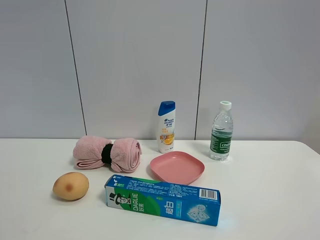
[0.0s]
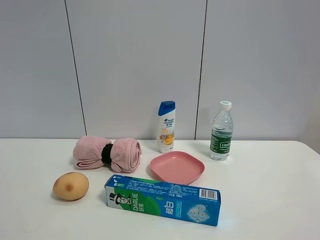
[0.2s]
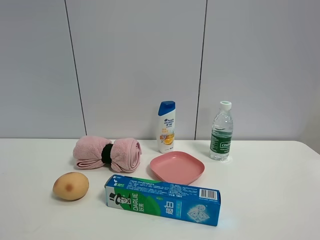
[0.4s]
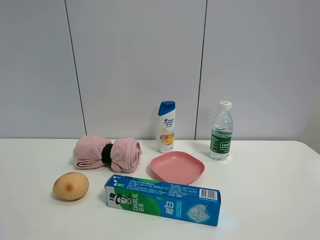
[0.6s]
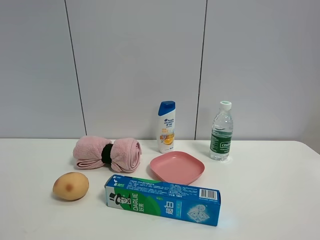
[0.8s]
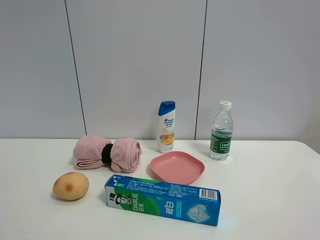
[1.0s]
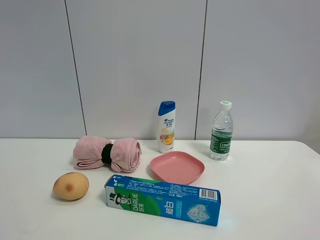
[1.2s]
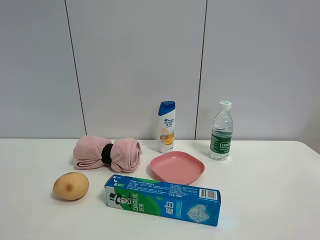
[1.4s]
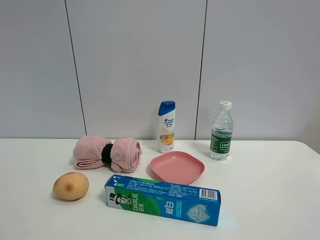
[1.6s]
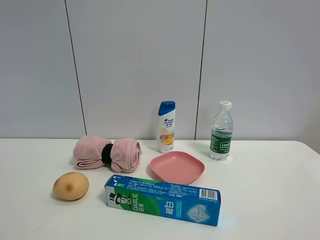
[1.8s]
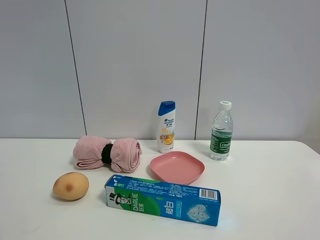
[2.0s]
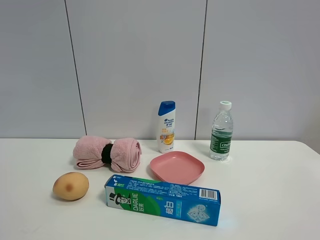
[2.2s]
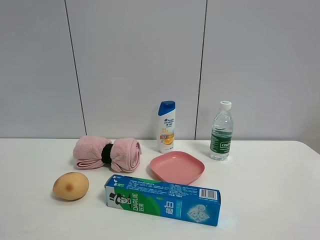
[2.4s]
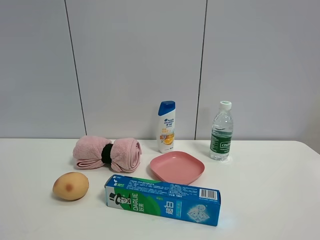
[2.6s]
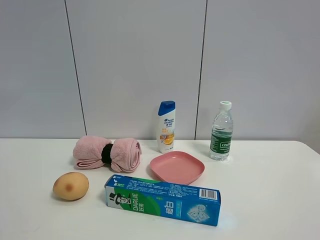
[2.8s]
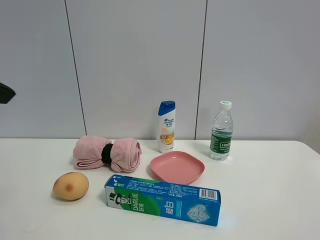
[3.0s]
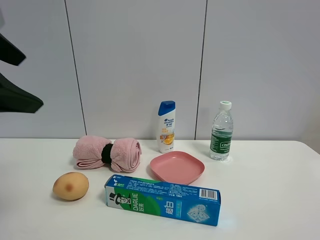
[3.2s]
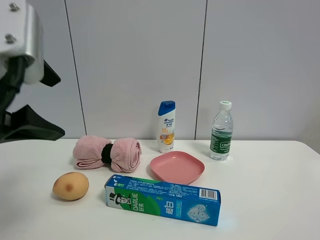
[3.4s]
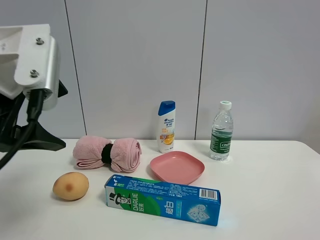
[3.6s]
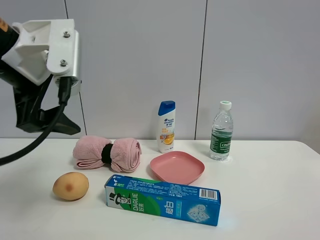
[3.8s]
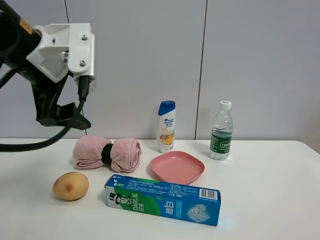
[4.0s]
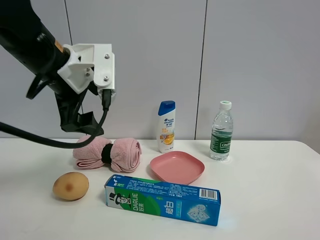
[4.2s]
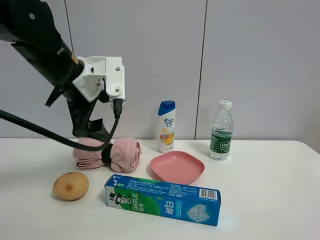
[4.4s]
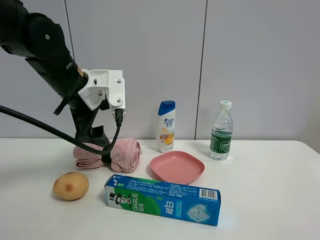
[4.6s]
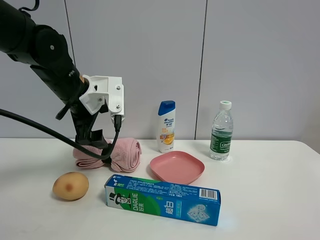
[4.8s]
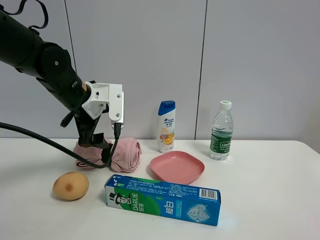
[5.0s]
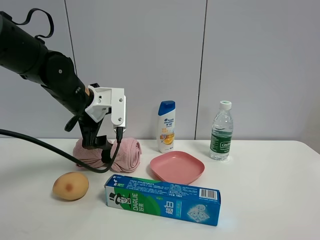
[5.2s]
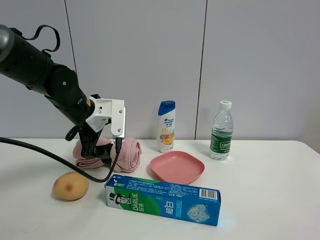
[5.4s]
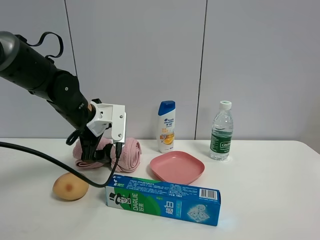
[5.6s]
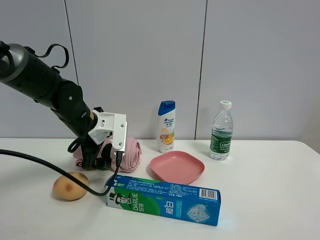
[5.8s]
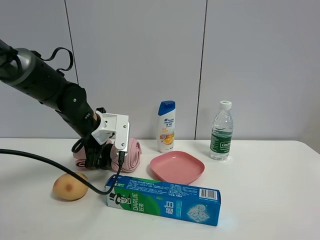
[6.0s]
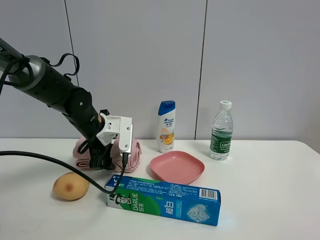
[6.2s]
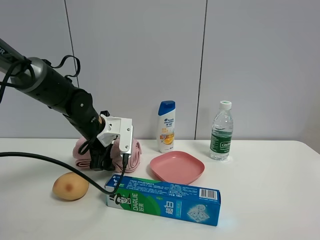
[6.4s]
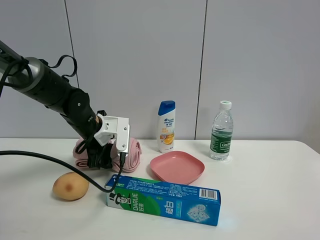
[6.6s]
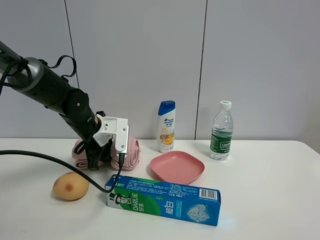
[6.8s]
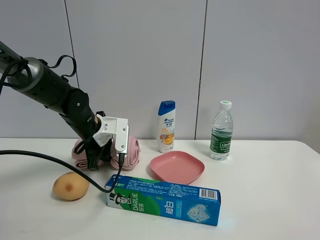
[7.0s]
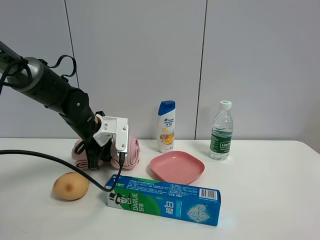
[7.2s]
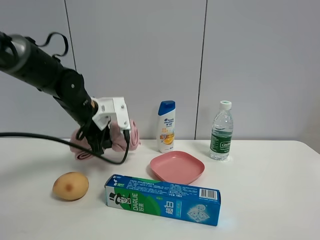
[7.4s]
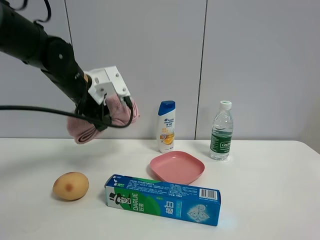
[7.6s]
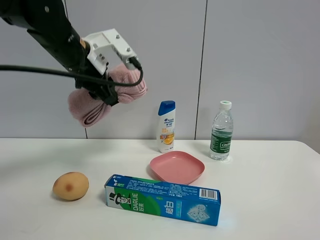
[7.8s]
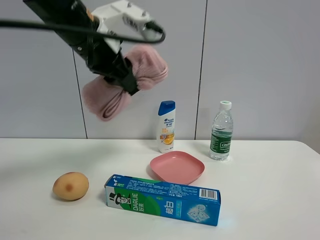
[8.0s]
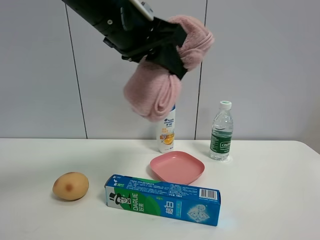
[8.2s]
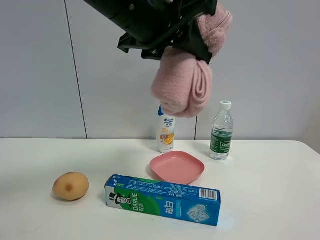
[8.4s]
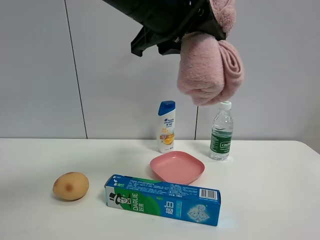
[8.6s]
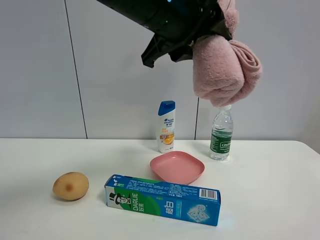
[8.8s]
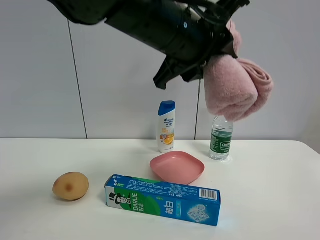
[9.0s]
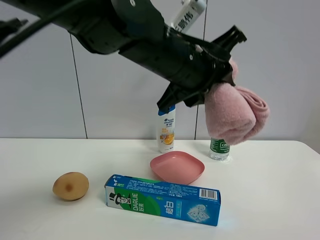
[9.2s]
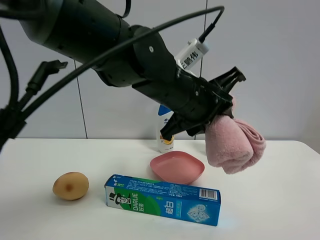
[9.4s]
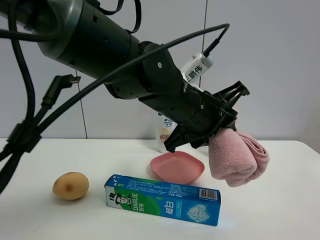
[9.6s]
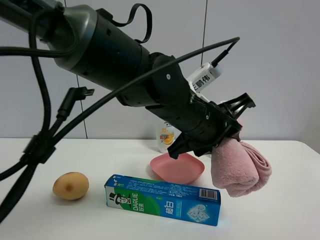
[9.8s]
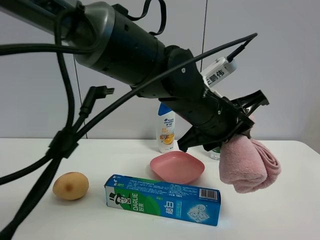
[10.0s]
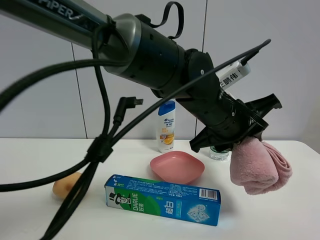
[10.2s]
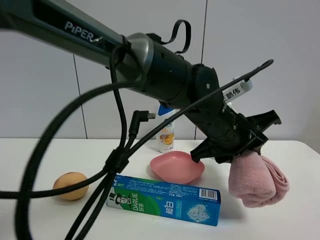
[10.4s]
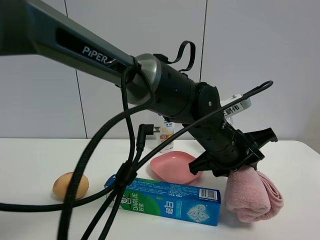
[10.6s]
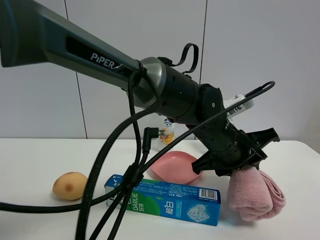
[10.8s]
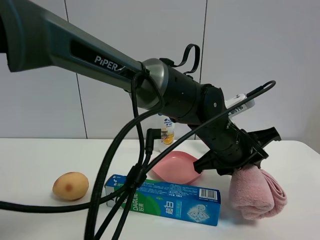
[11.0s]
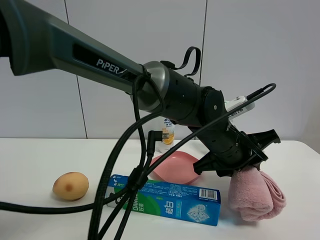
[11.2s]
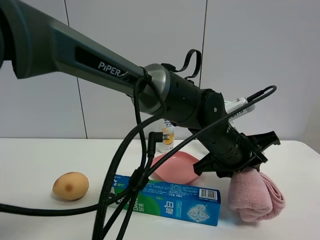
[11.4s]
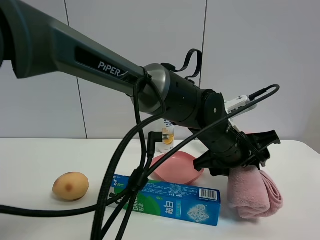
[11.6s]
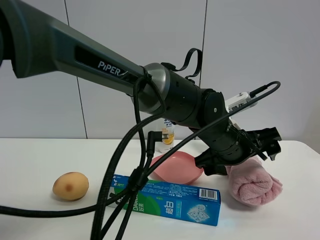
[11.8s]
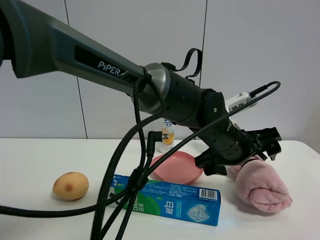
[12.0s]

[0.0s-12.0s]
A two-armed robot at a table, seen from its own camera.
Task of the whole recording: the gripper move the object.
Step, 0.0s to 7.2s: Grasp the pink towel with the left gripper.
Step, 7.4s to 11.8s: Place the pink towel on the table with the left gripper.
0.0s to 1.6s: The two grippers keep their place.
3.0s to 4.4s: The left gripper goes roughly 20 cm forward, to the right and downward.
4.4s to 6.0s: The left gripper heads downward and forward, covering some 15 cm.
6.0s to 7.6s: The left gripper goes roughly 10 cm upward, and closes up.
7.6s to 9.0s: The left gripper moves to the right, backward and upward, some 25 cm.
9.0s to 10.4s: The left gripper goes about 15 cm downward and to the right.
10.4s to 12.0s: The left gripper opens up.

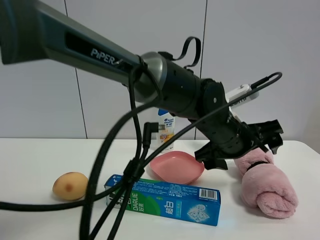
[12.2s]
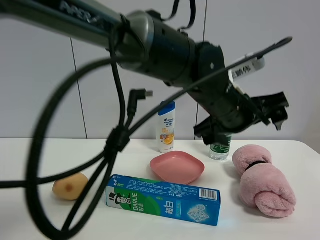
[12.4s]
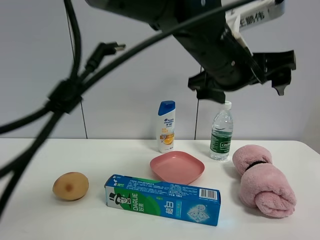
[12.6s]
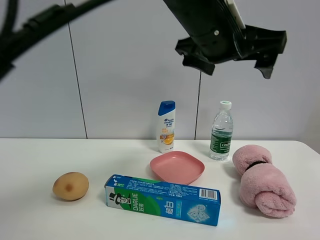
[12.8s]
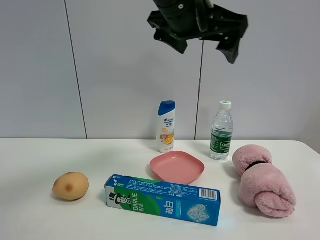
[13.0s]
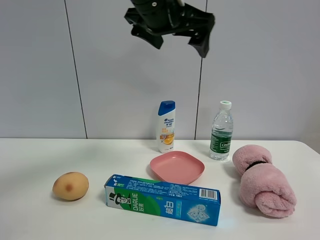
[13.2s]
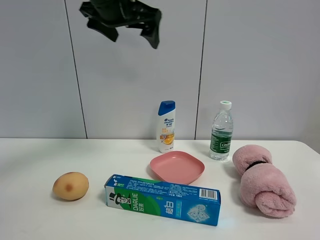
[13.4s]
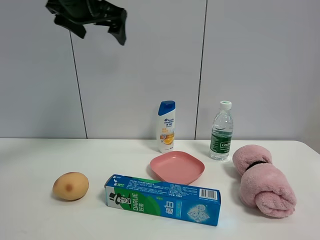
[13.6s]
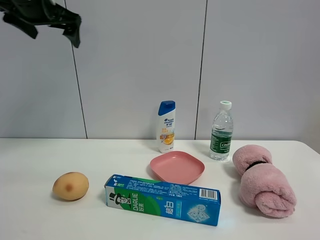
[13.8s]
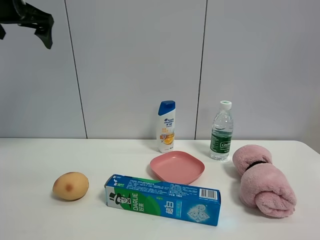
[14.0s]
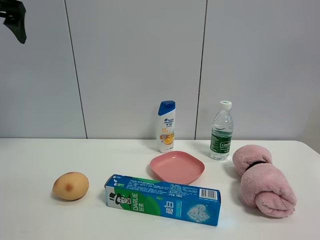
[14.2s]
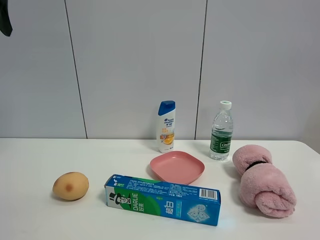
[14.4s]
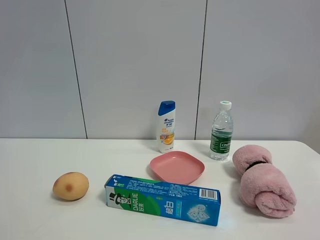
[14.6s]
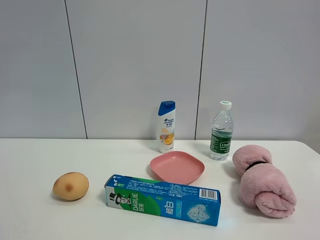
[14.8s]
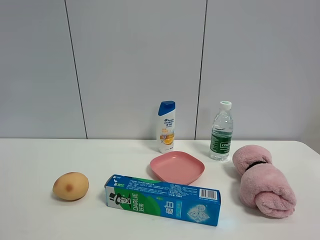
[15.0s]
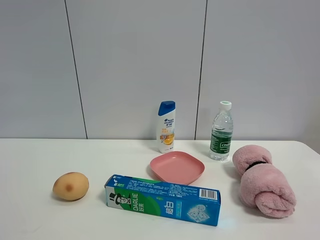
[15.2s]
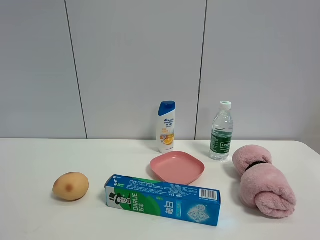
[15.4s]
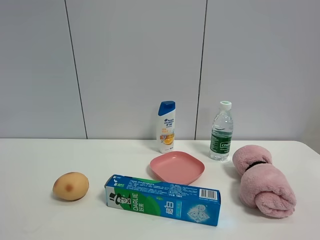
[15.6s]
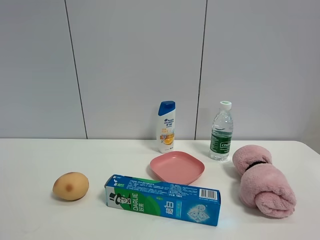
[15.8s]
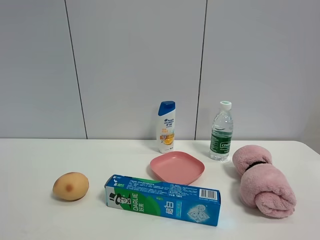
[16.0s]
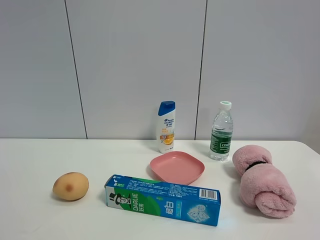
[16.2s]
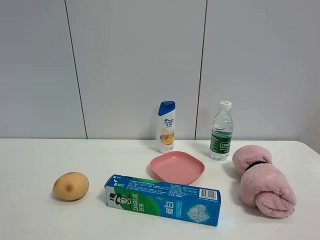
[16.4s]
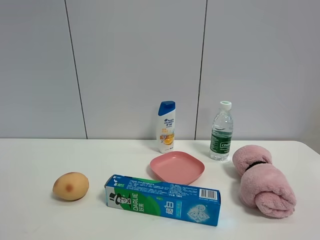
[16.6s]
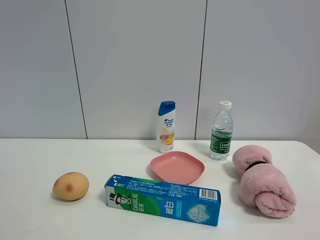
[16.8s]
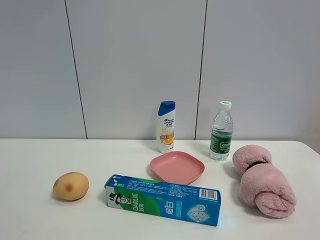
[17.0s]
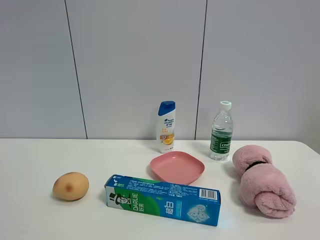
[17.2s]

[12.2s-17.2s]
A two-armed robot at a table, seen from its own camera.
Task of the whole recording: the gripper move the object.
12.2s to 13.8s: The left gripper goes roughly 40 cm to the left and upward.
13.8s to 15.6s: The left gripper is displaced backward by some 40 cm.

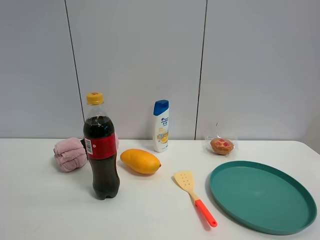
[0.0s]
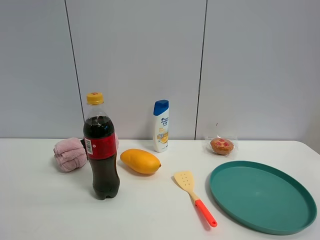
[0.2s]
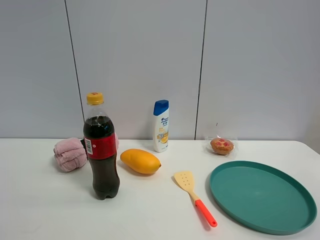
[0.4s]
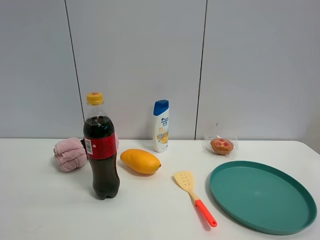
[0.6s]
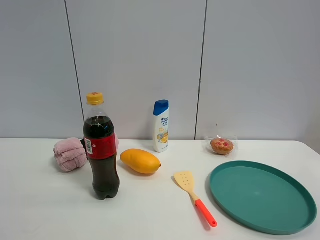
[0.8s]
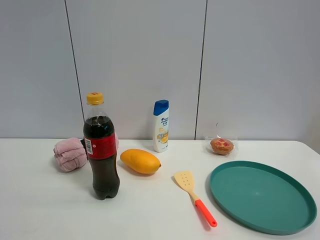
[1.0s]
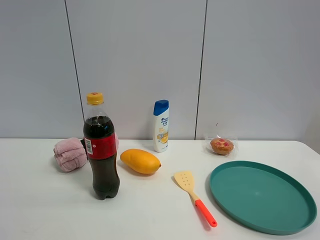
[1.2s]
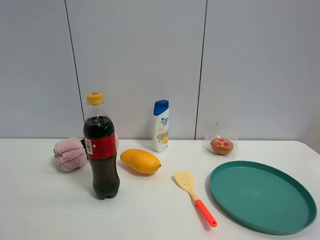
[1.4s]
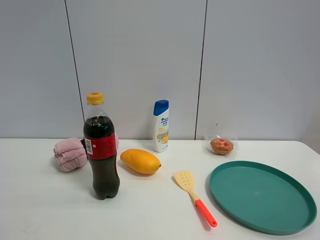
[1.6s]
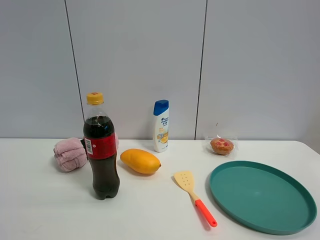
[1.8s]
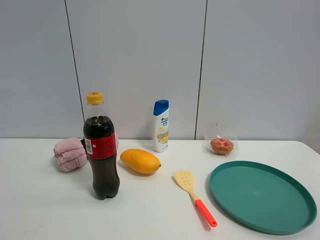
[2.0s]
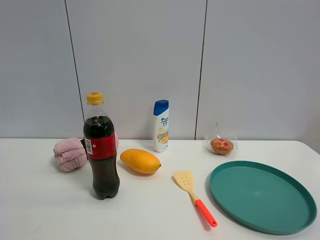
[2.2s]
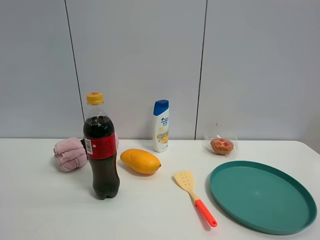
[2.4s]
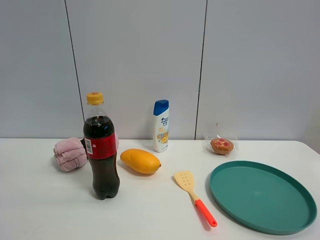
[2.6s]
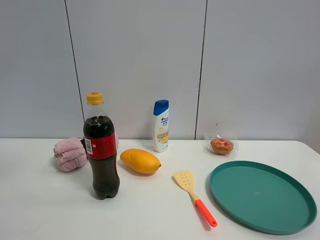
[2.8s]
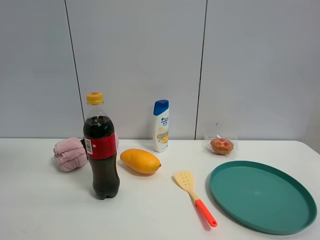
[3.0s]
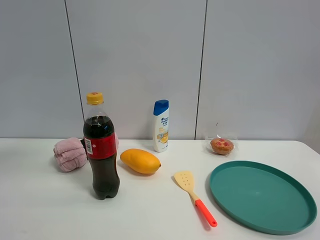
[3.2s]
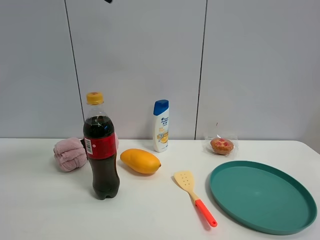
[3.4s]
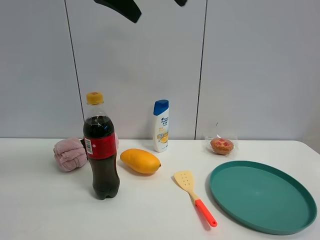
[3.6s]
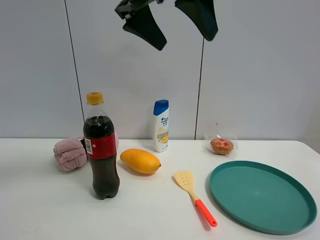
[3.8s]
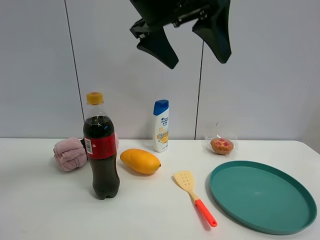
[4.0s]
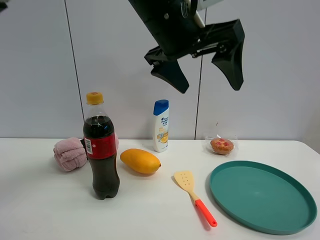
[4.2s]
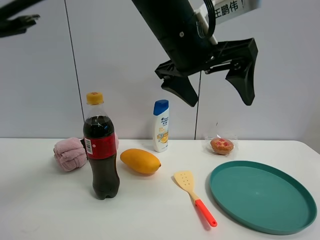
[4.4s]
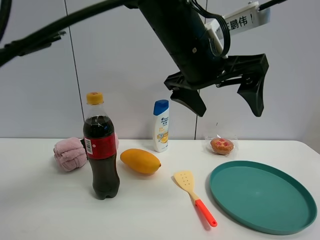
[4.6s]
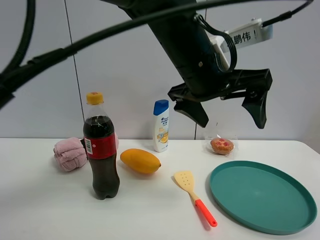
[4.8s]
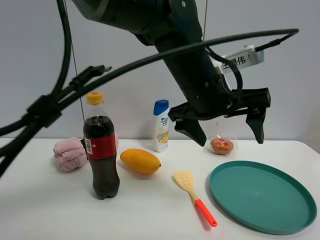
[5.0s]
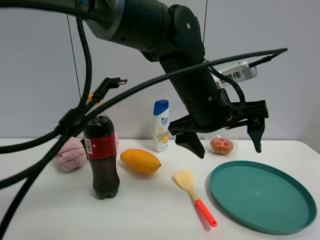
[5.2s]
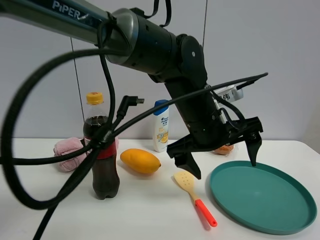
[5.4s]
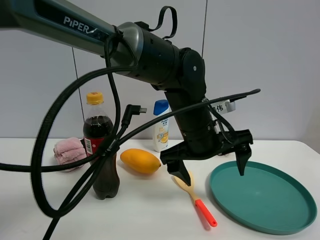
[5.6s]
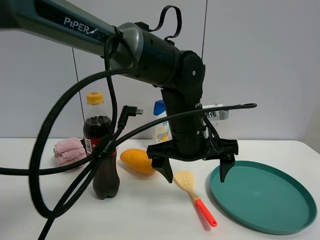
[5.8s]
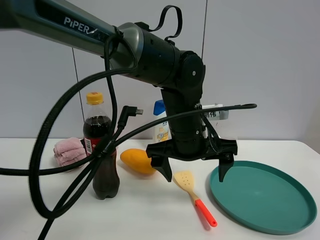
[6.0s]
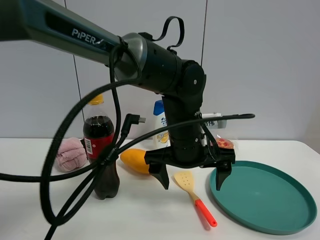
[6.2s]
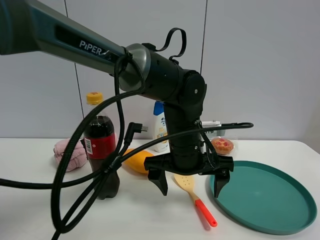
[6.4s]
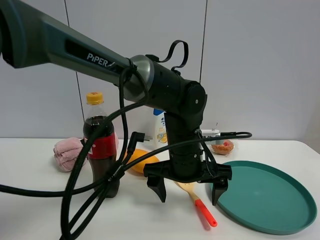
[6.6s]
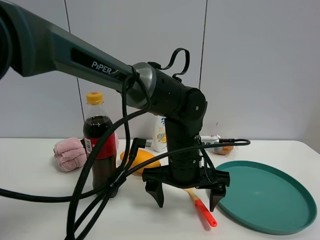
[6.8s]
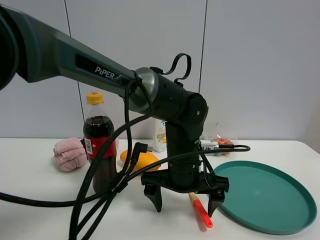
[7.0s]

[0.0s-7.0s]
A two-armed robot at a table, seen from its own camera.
Task of the whole recording: the gripper move the object.
0.0s to 1.4s: Neither gripper changes place.
2.8s to 4.2s: The left gripper travels to the right and downward by roughly 30 cm.
4.2s to 5.6s: The left gripper travels downward by approximately 15 cm.
5.6s to 7.0s: The left gripper is displaced downward by about 5 cm.
